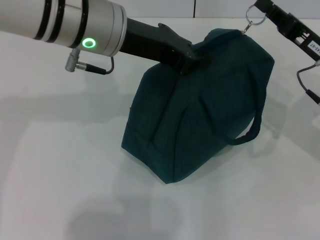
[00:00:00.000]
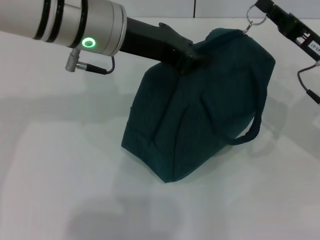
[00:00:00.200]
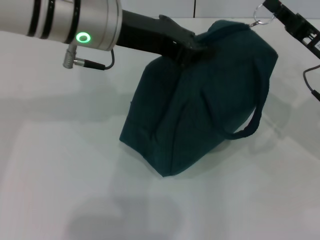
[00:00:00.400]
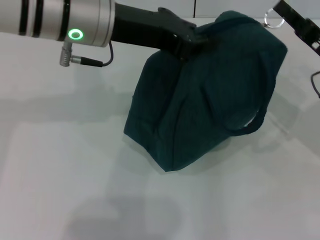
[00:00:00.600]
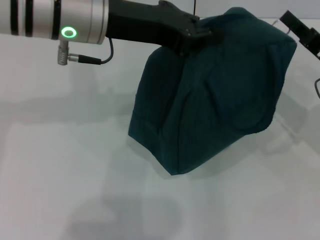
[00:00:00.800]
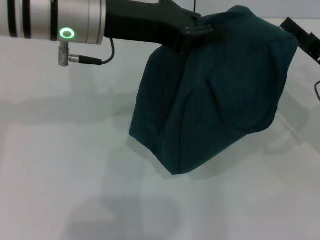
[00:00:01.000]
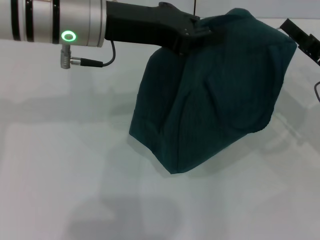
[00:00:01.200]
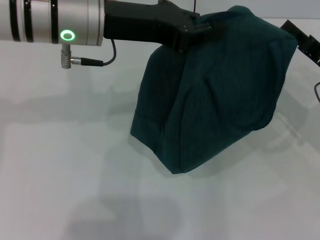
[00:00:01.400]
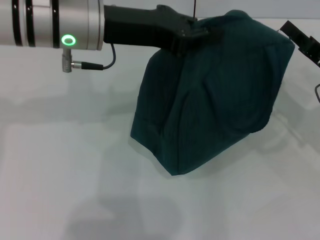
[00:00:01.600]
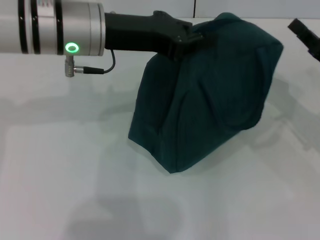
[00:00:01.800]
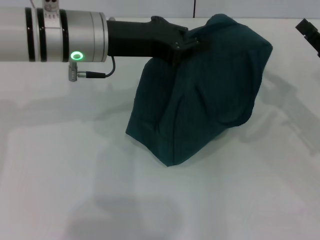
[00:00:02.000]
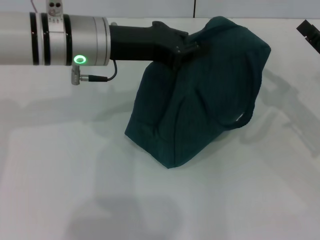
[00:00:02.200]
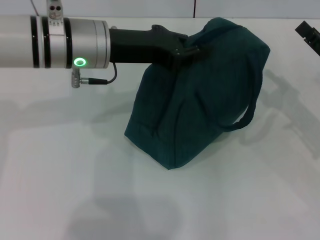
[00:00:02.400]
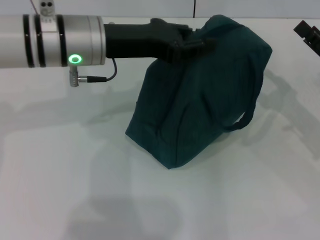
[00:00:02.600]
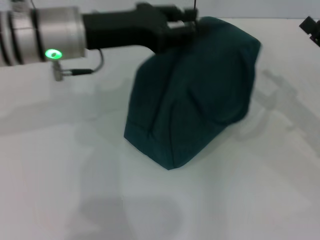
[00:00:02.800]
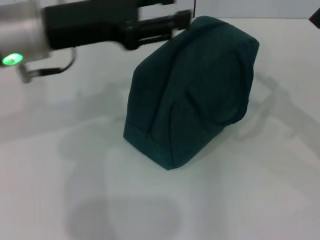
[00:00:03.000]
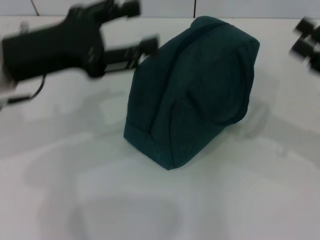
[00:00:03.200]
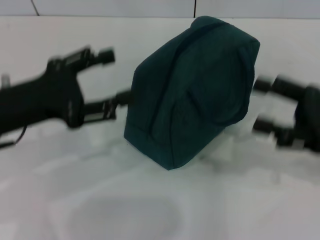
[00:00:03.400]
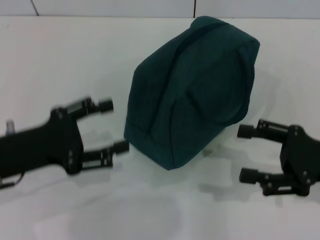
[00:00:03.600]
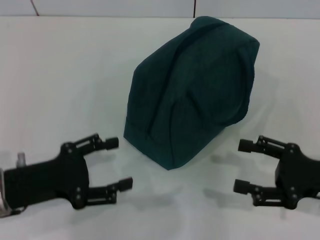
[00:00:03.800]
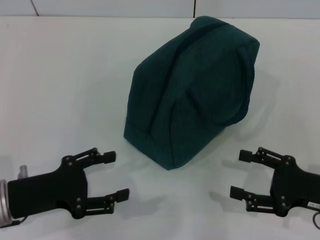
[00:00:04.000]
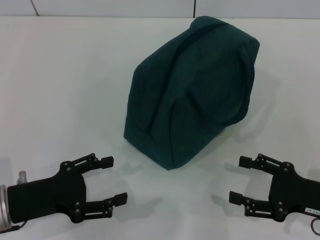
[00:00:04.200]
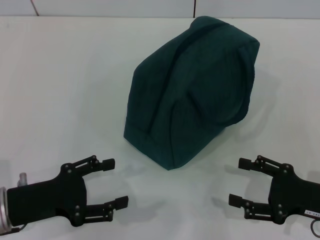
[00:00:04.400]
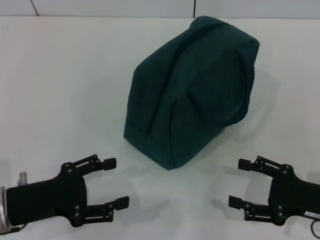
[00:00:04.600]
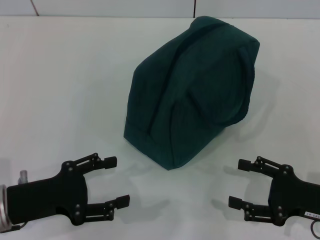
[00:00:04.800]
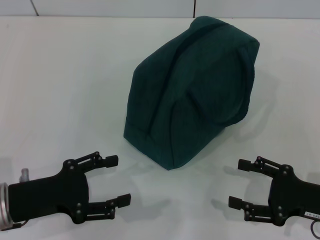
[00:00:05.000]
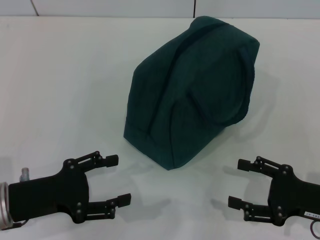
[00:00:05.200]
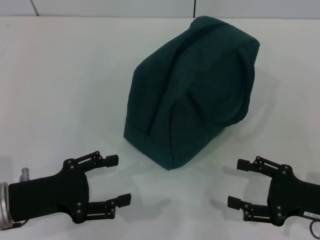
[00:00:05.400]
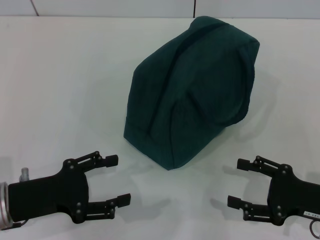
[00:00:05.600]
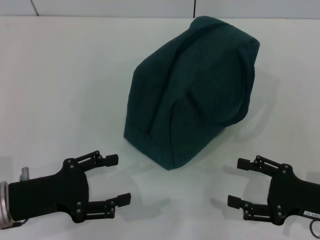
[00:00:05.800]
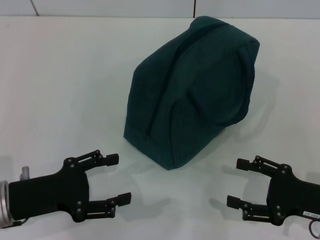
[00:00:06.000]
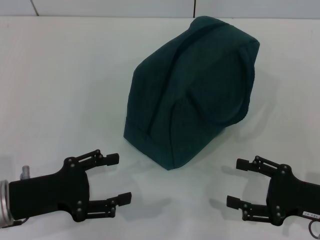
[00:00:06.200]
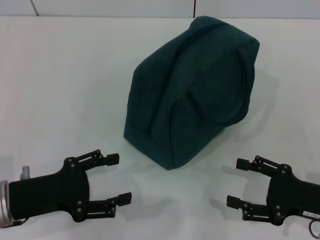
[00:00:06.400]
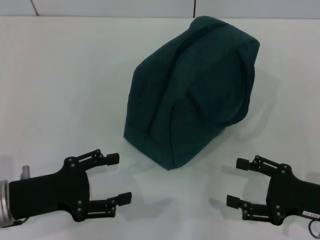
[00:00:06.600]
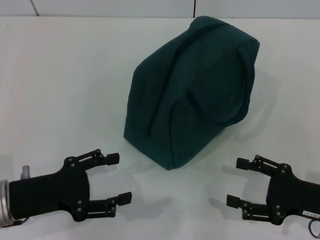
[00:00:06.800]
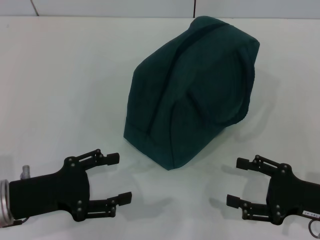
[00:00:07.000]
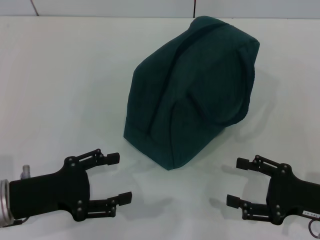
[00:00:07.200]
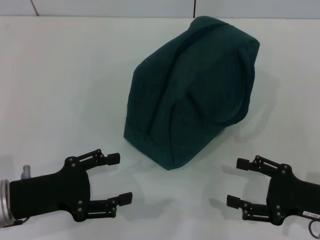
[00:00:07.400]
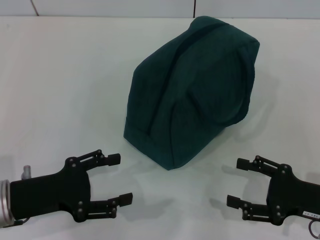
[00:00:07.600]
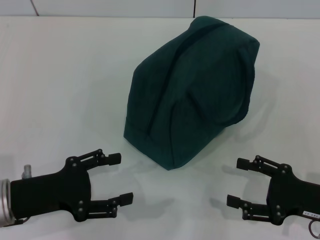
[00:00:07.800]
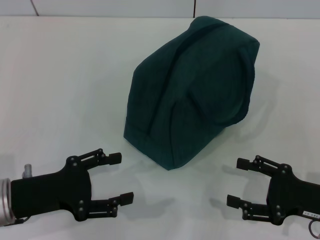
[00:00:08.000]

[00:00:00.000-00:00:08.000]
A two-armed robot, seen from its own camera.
Step, 00:00:01.800 to 00:00:02.600: Hold the lunch bag with your left hand.
00:00:00.000 to 00:00:01.600: The grippers move only a little.
00:00:01.600 to 00:00:03.200: The left gripper moves to the left and backward, roughly 10 cm, and opens up. The right gripper shifts by some 5 cm, and opens up.
00:00:03.200 to 00:00:04.800: Both grippers move downward and backward, about 15 cm.
00:00:04.800 to 00:00:08.000: Both grippers stay about where they are.
